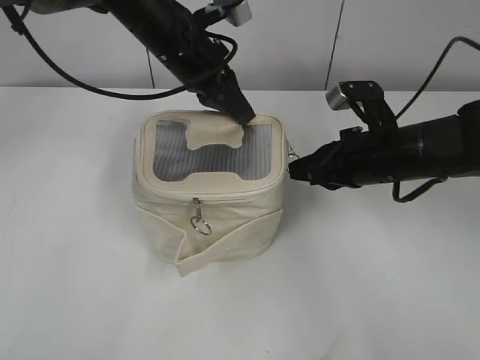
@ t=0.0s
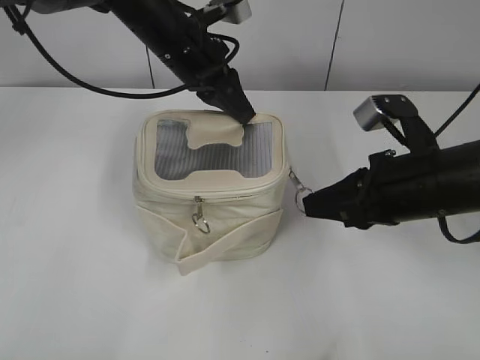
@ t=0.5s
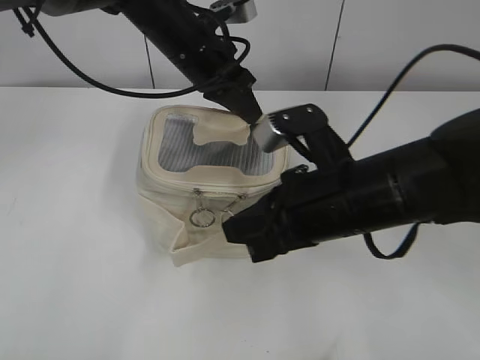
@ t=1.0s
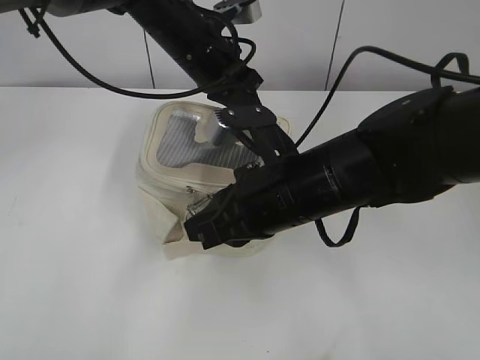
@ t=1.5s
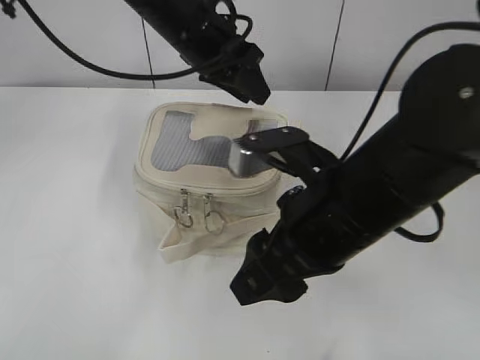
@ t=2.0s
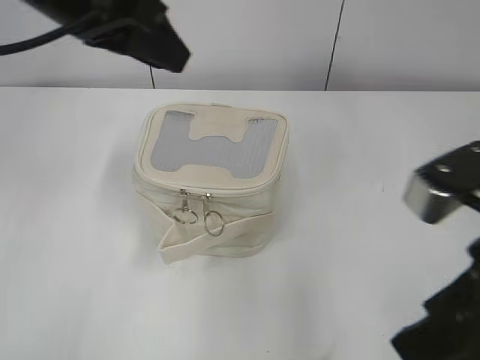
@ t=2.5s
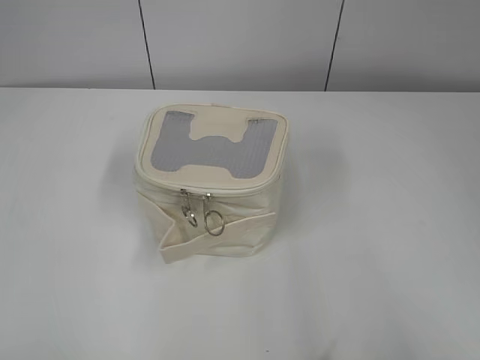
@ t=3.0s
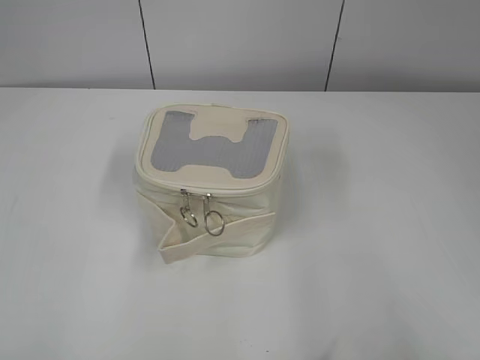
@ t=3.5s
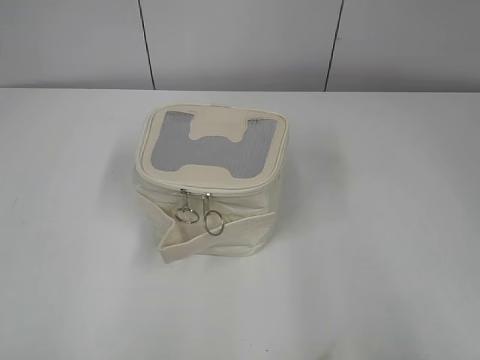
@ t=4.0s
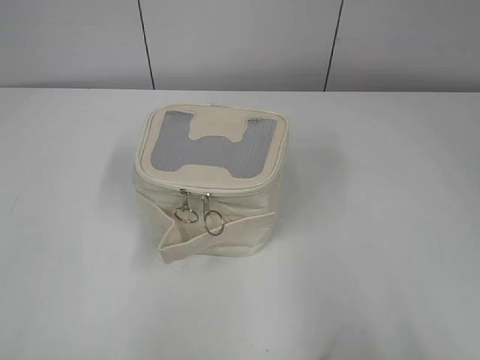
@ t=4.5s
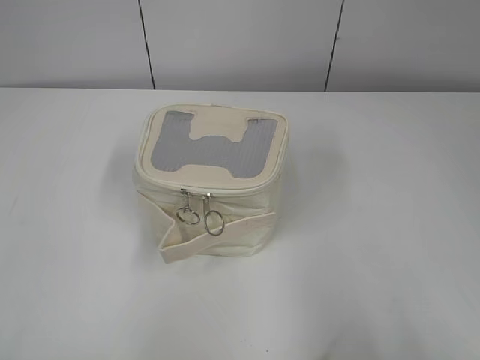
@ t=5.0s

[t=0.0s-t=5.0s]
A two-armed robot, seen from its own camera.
t=0.0s to t=2.5s: The right gripper is displaced backward and upward by roughly 25 cm, and opens its fingers. The left gripper goes about 15 cm backward, upward and to the left, and opens its fingers.
t=2.5s to t=5.0s: The left gripper goes about 35 cm backward and to the left. Meanwhile the right gripper is displaced to the right and backward by some 20 cm.

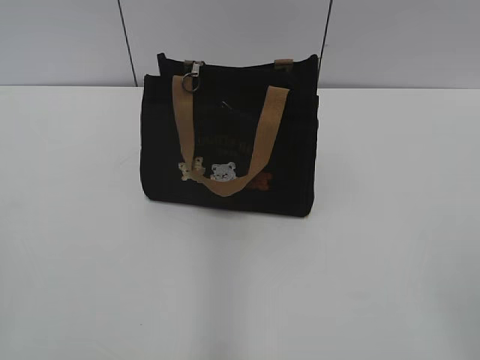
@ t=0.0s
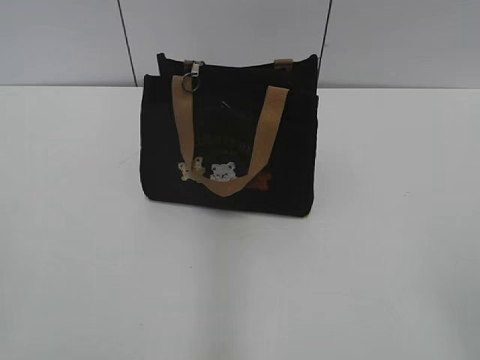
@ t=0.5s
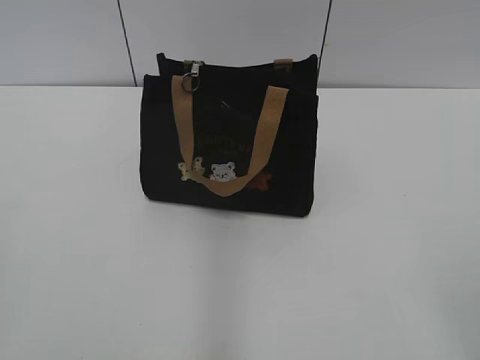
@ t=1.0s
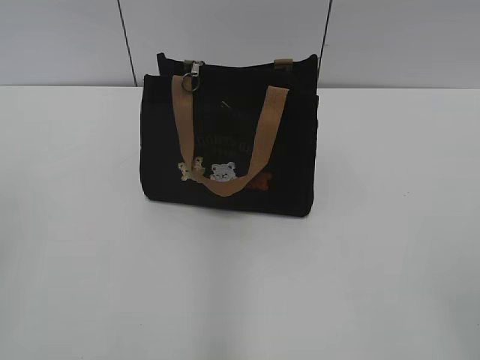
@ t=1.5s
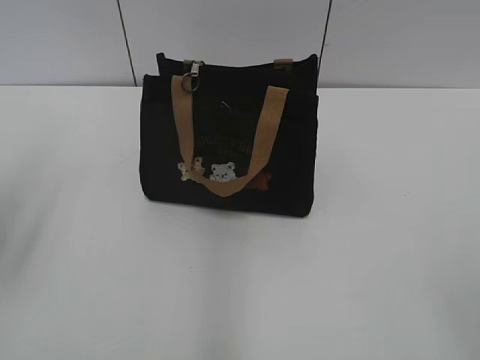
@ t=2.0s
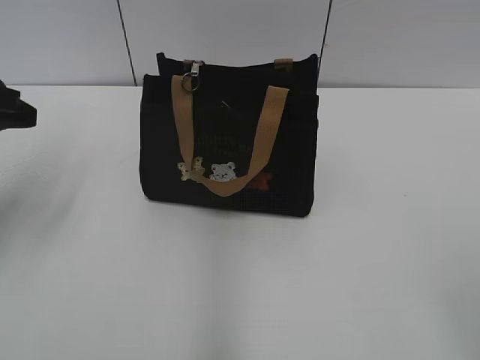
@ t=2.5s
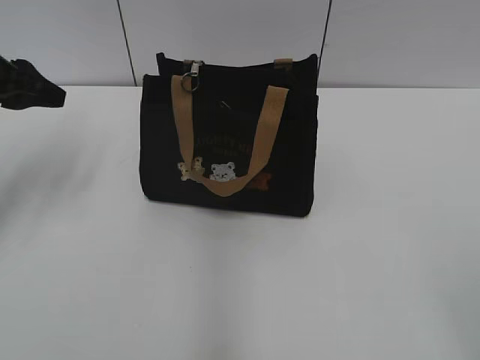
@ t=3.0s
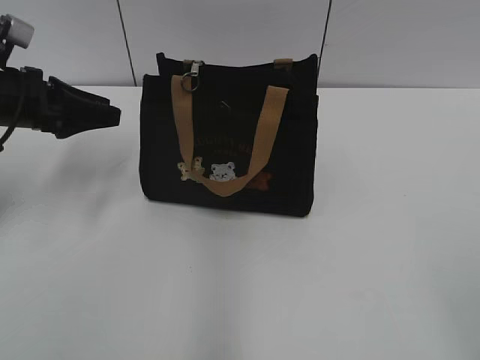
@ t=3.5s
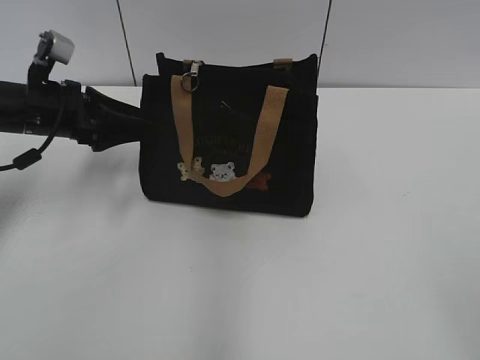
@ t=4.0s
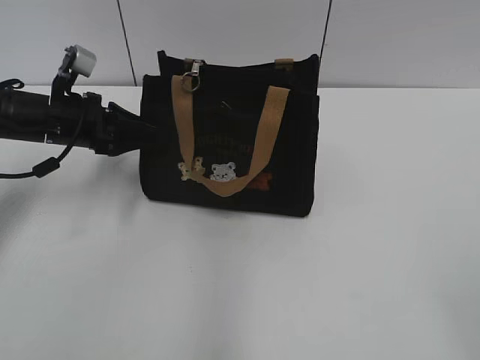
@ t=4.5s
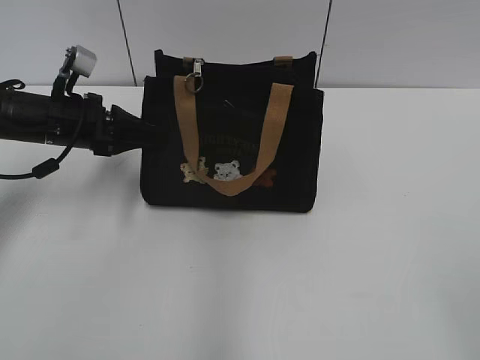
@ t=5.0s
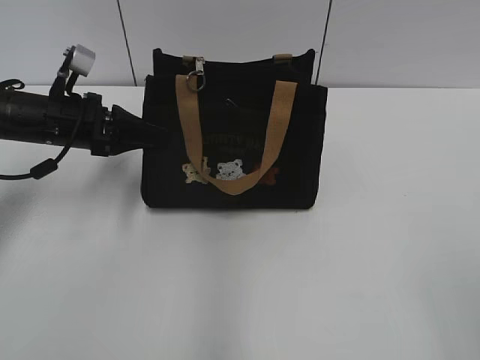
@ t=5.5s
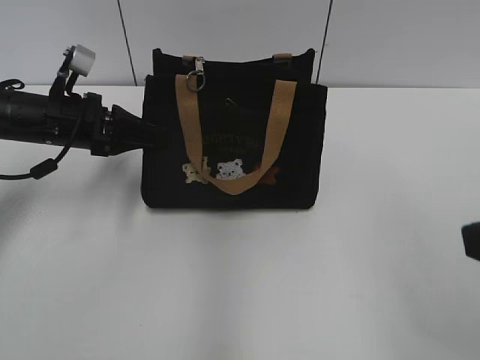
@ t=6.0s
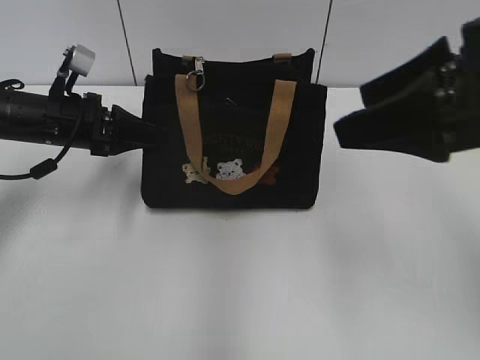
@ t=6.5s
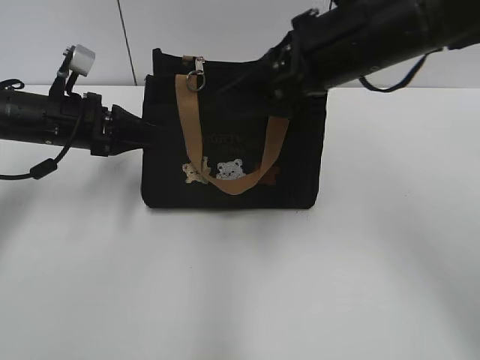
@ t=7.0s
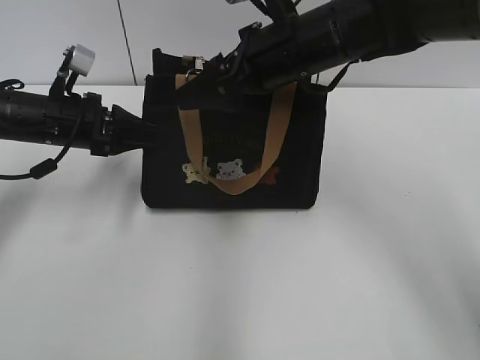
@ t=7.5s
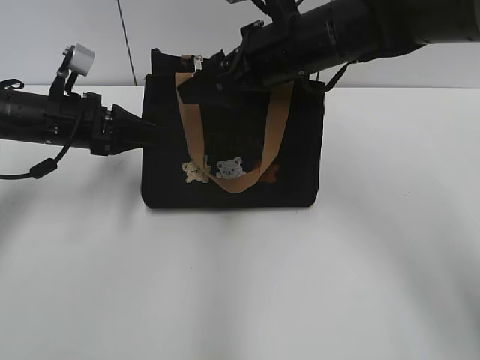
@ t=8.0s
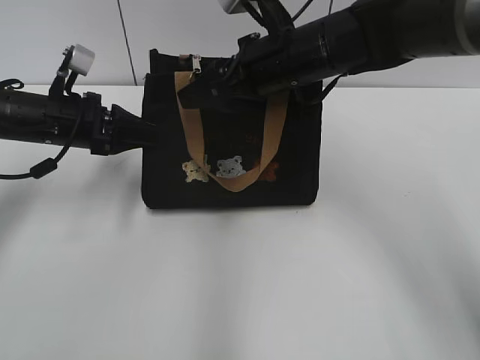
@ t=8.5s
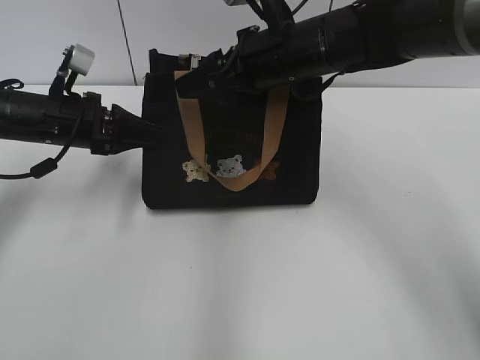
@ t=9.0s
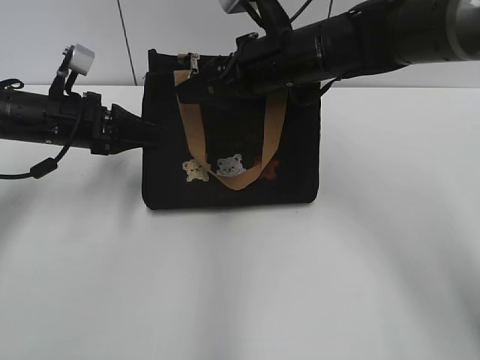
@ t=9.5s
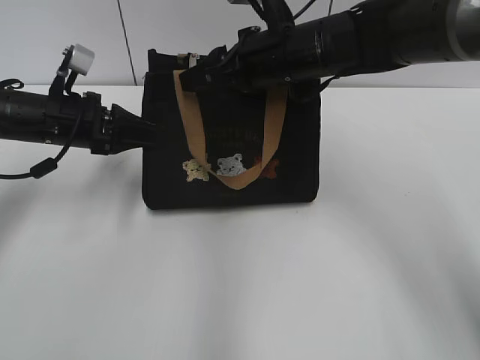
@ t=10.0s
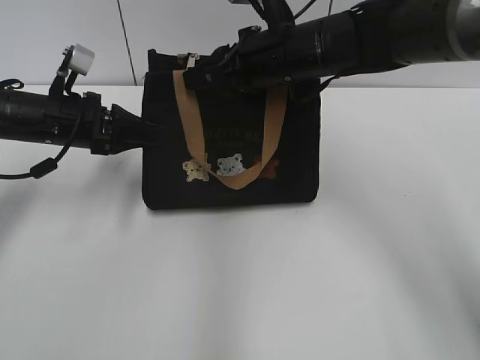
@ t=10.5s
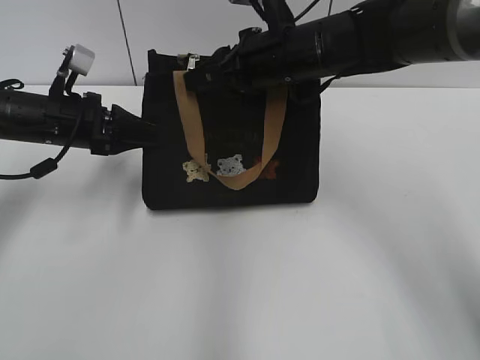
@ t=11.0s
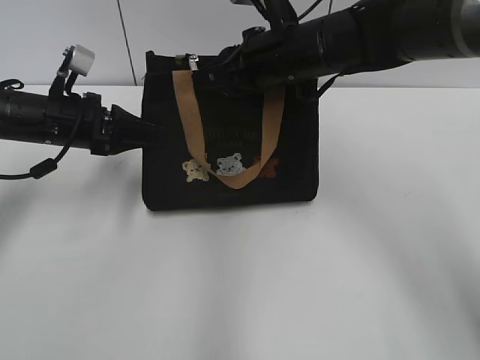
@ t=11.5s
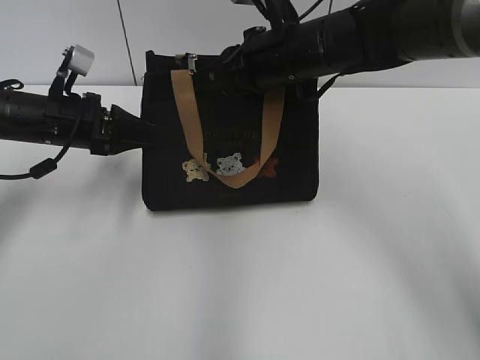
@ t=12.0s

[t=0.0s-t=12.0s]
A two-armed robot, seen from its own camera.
t=2.0s to t=4.0s: The left gripper moves forward and downward, roughly 25 cm, and opens up.
t=4.0s to t=6.0s: The left gripper closes up, while the right gripper shifts approximately 10 cm forward.
t=6.0s to t=8.0s: The right gripper heads forward and to the left, covering about 35 cm.
t=8.0s to t=10.0s: The right gripper closes its fingers.
t=10.0s to t=12.0s: The right gripper closes.

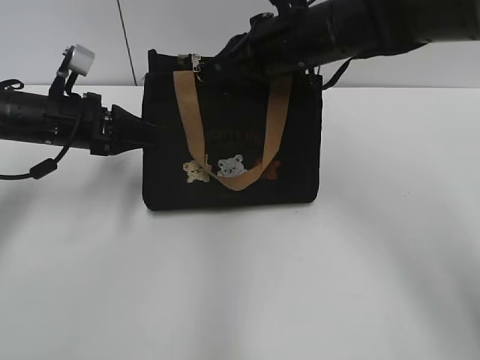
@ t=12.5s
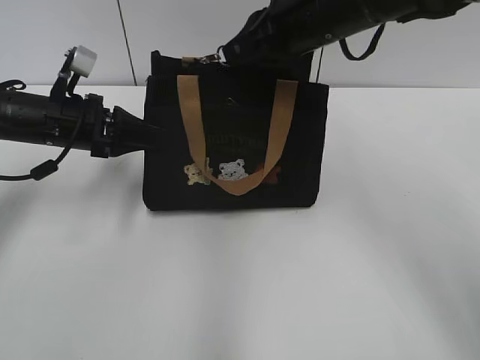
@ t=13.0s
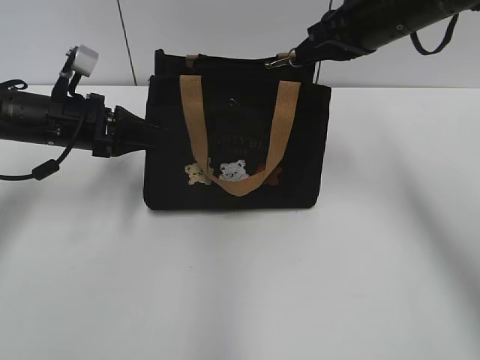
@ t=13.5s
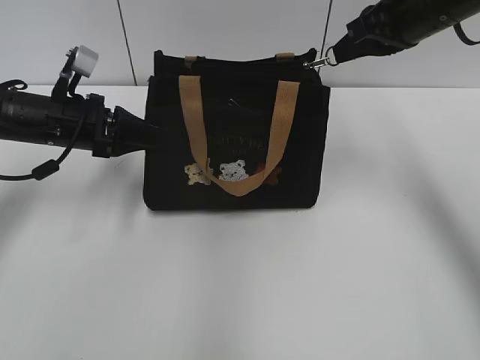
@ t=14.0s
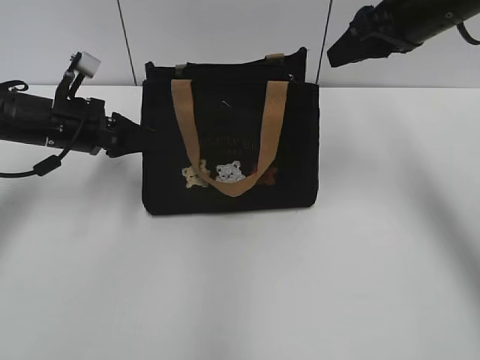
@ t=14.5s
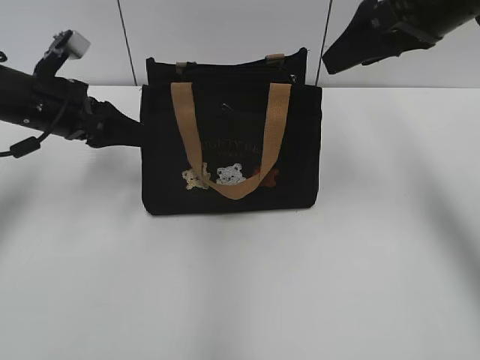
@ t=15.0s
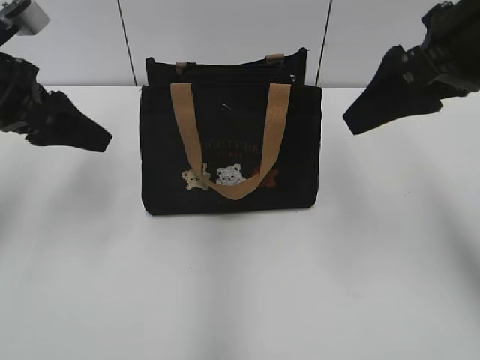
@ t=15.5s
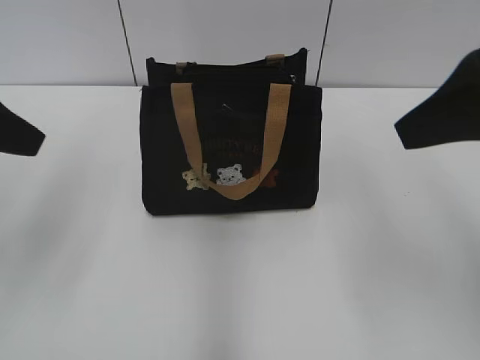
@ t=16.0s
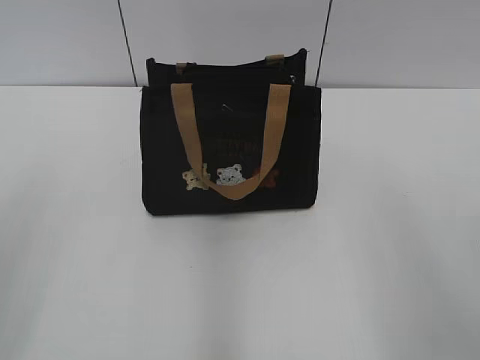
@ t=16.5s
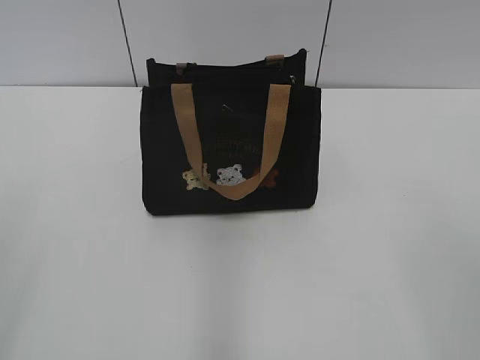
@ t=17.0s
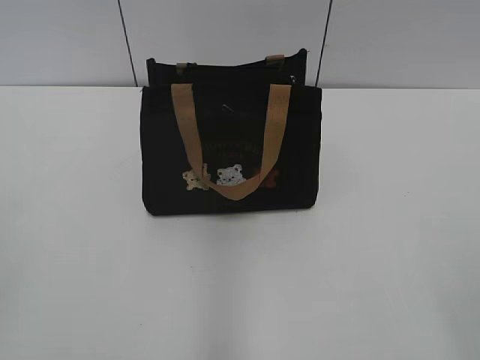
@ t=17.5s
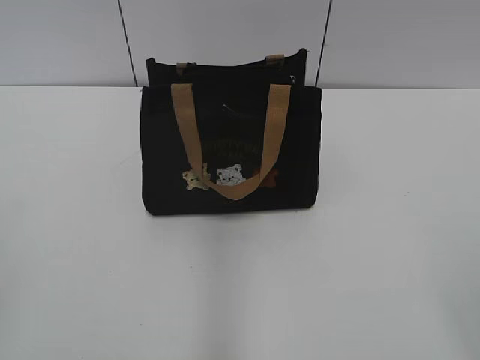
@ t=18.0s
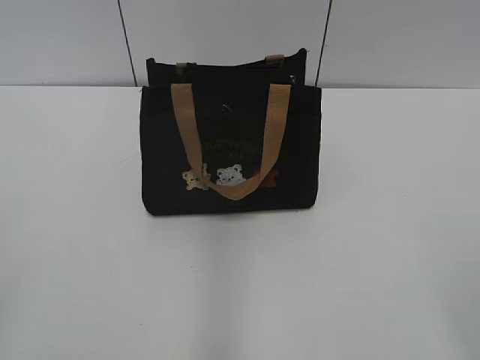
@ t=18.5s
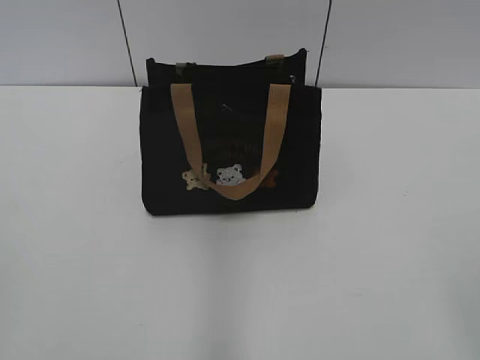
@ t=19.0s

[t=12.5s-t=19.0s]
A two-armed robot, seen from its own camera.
Step, t=14.5s to t=15.0s: Hold the bag with your left hand.
t=12.5s to t=14.5s: The right gripper goes some 15 cm to the right and upward.
t=14.5s to t=17.0s: The left gripper moves backward and upward, roughly 35 cm, and opens. The right gripper is displaced backward by about 35 cm, and opens its fingers.
